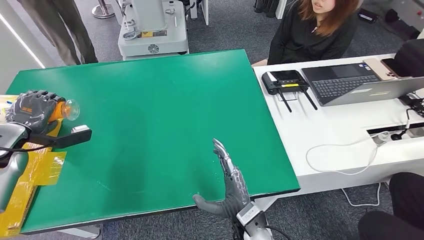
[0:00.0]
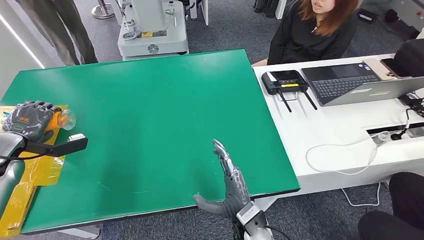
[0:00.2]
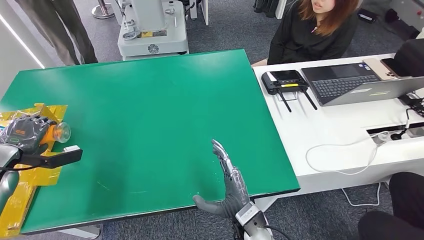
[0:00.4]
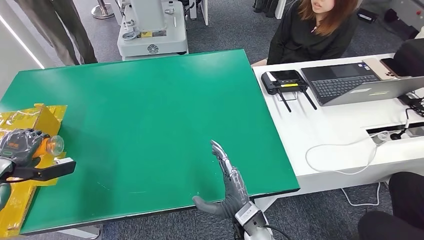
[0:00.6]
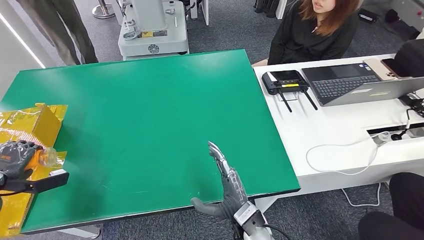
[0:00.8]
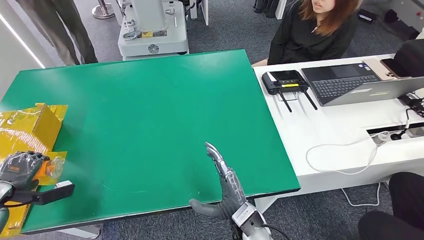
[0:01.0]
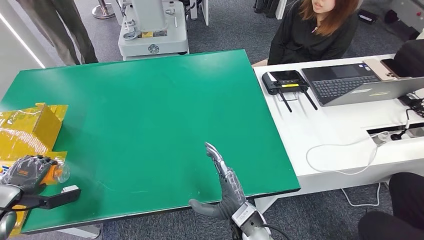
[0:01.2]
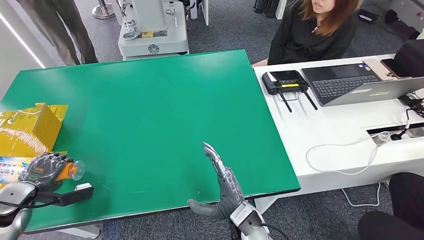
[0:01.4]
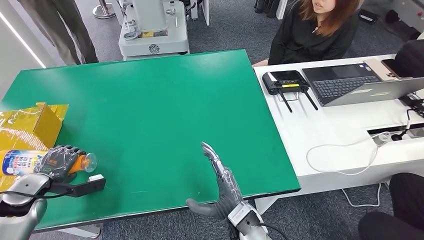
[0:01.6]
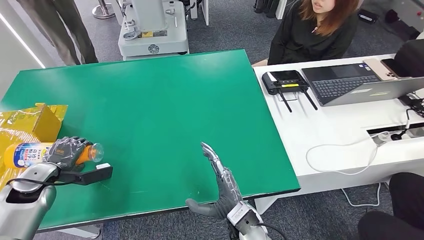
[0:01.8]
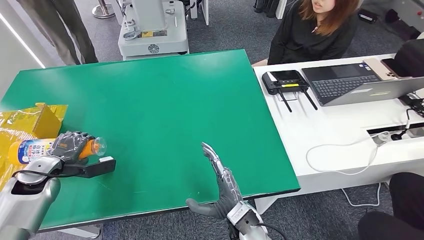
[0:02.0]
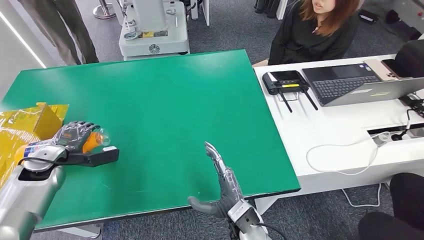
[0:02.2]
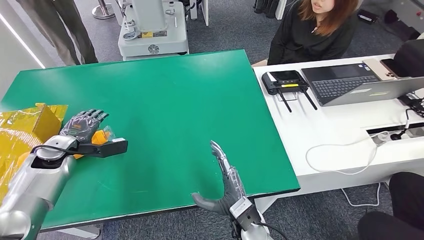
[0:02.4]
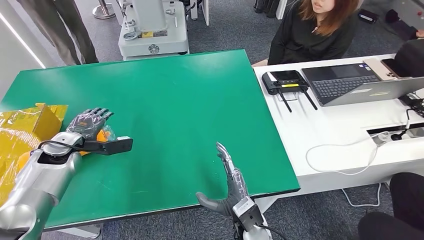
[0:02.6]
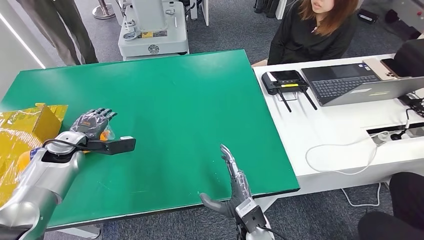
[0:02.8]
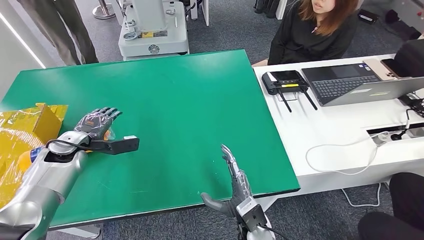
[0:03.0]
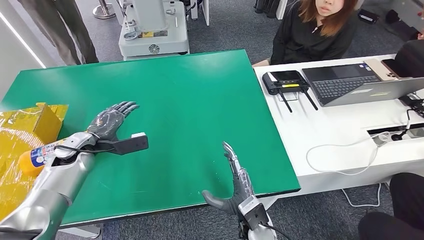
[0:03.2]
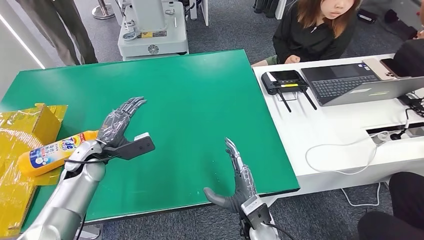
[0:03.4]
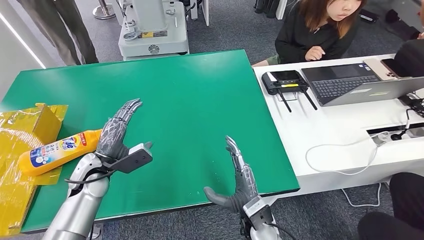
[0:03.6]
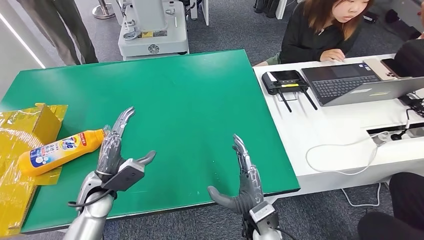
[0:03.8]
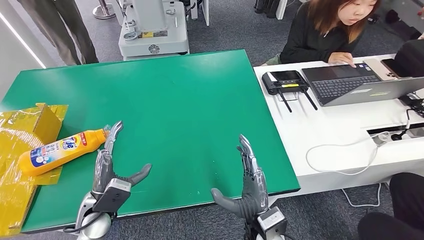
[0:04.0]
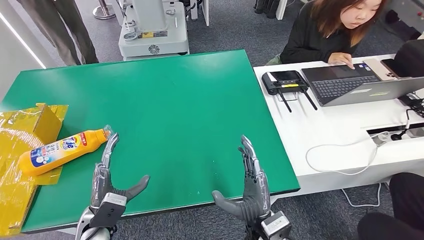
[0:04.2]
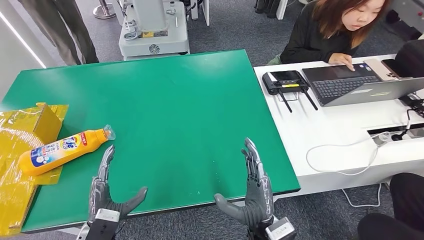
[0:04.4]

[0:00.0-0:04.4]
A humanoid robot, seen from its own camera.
Step, 0:00.0 to 0:04.4: Turn the bottle to the front side.
0:00.0 to 0:01.4: The left hand travels downward, backward and to the left by approximately 15 cm.
0:01.4 to 0:03.0: The left hand goes approximately 20 cm to the right and forward.
0:03.0 to 0:04.4: The left hand travels backward and to the right by approximately 25 cm; the right hand travels upward by roughly 5 cm.
